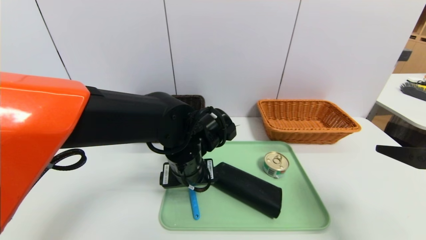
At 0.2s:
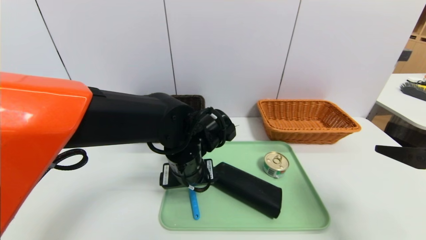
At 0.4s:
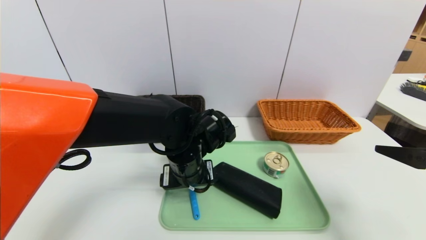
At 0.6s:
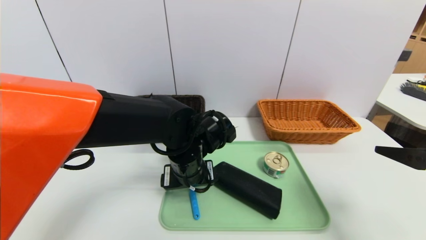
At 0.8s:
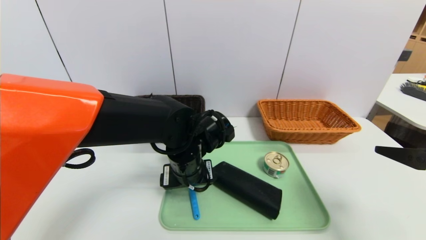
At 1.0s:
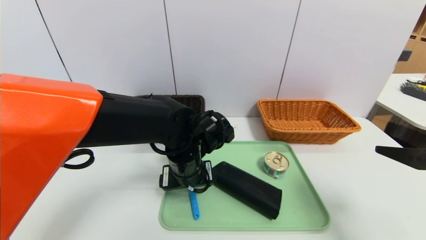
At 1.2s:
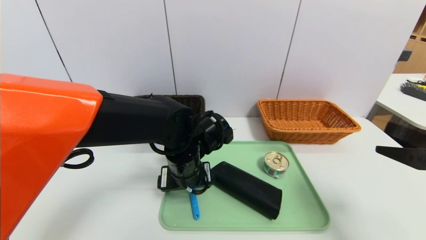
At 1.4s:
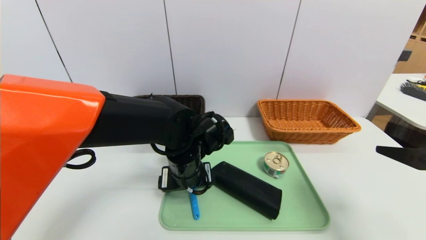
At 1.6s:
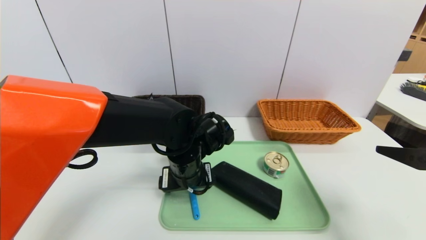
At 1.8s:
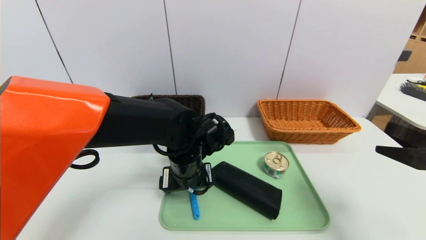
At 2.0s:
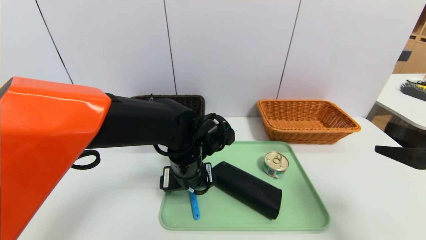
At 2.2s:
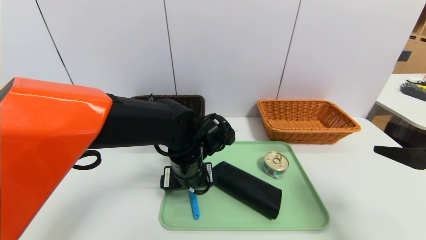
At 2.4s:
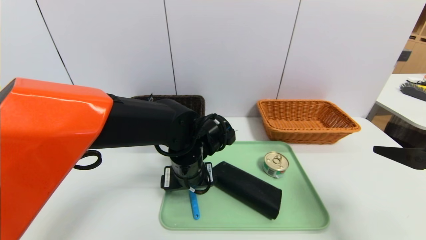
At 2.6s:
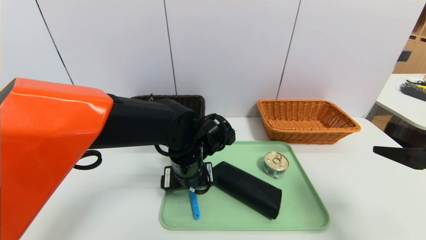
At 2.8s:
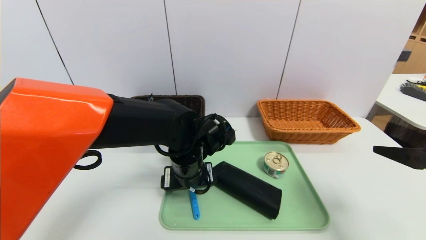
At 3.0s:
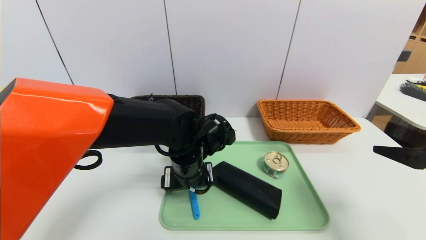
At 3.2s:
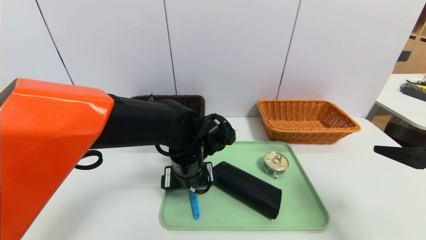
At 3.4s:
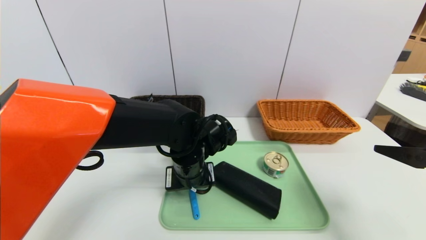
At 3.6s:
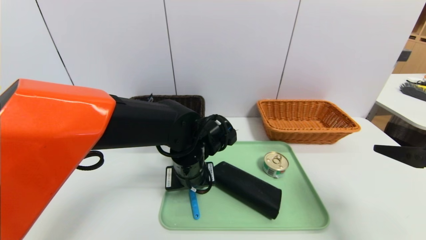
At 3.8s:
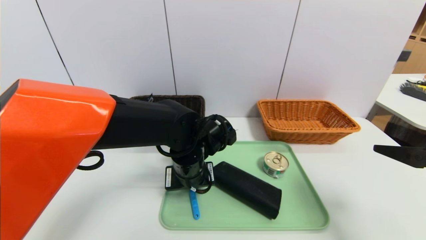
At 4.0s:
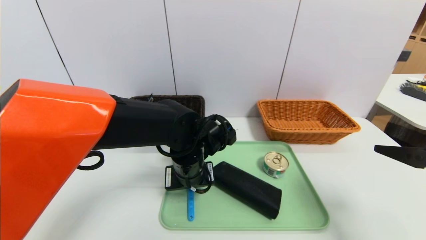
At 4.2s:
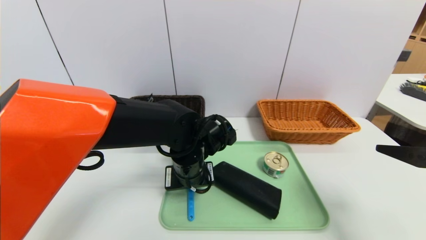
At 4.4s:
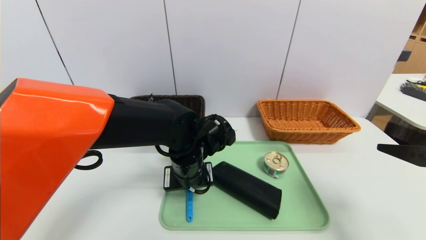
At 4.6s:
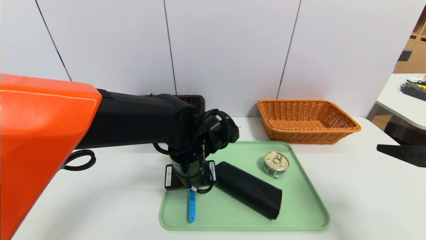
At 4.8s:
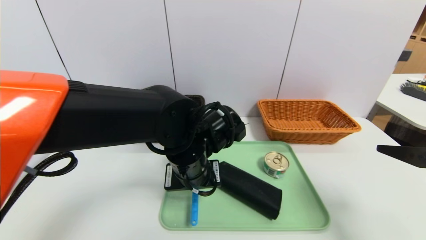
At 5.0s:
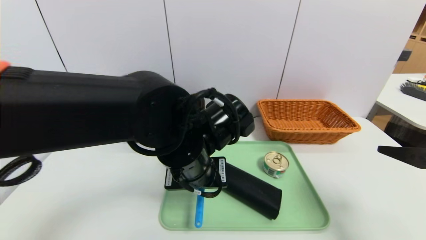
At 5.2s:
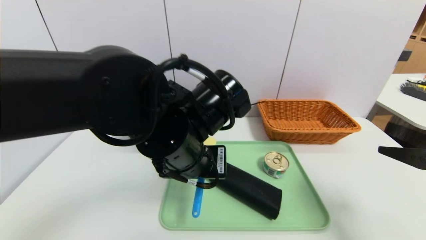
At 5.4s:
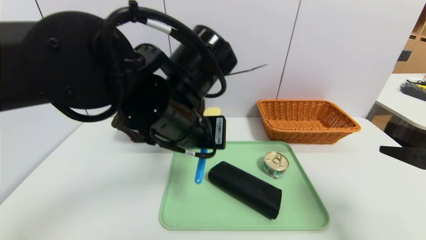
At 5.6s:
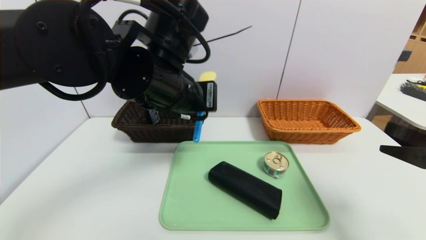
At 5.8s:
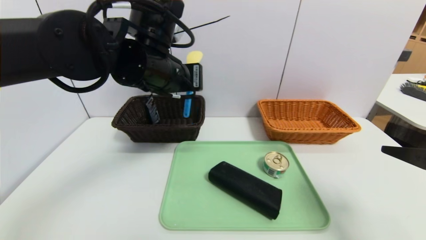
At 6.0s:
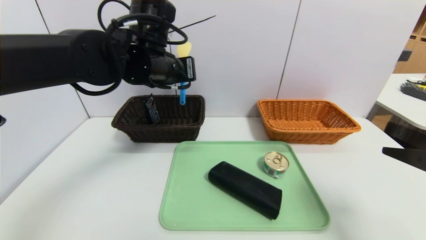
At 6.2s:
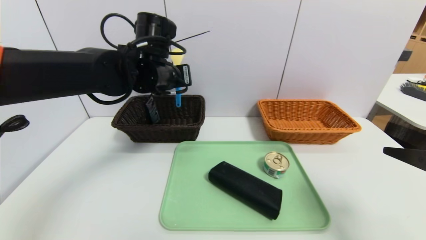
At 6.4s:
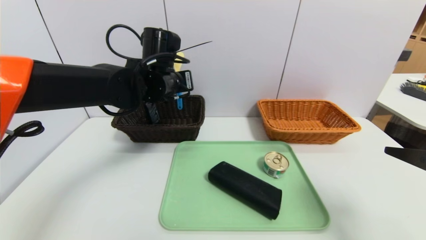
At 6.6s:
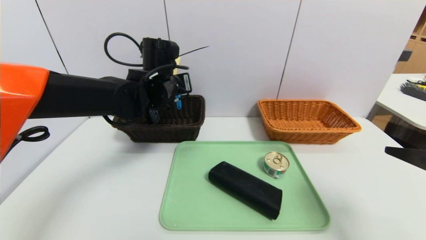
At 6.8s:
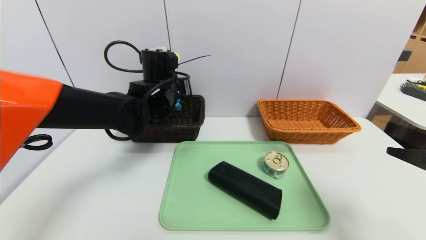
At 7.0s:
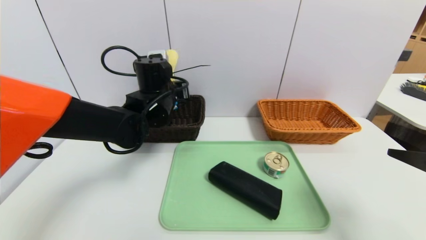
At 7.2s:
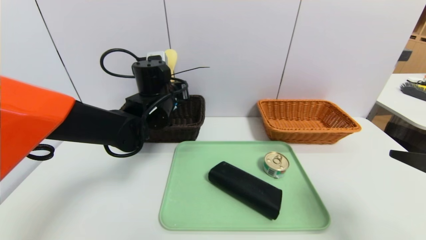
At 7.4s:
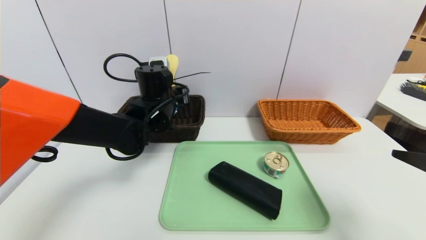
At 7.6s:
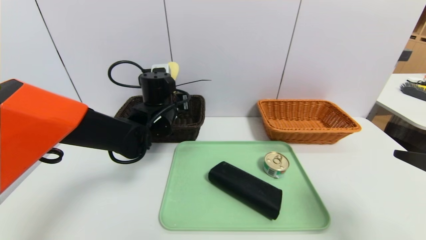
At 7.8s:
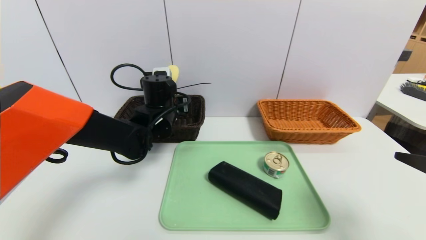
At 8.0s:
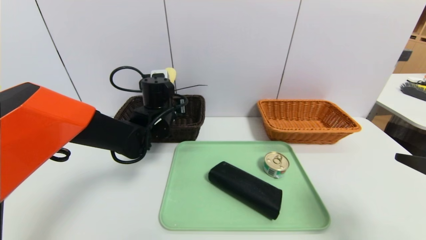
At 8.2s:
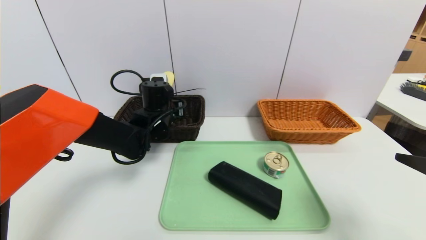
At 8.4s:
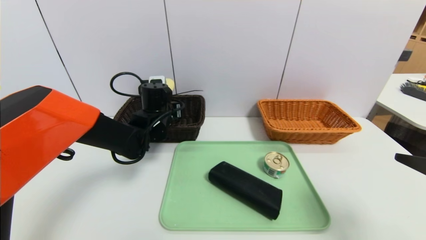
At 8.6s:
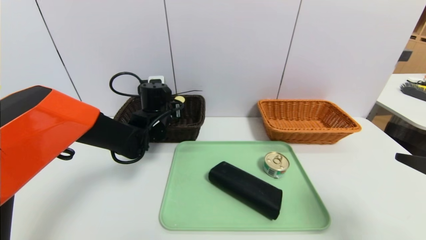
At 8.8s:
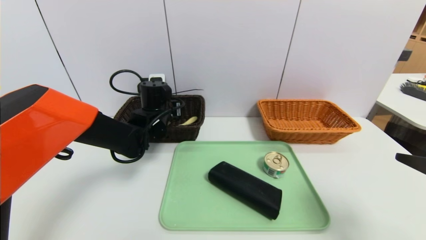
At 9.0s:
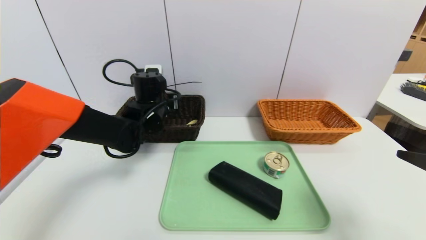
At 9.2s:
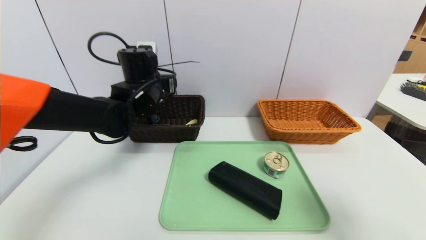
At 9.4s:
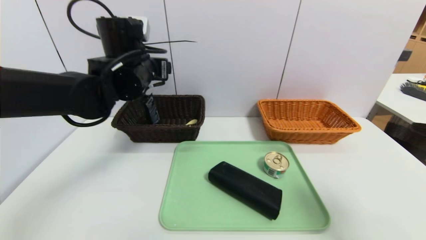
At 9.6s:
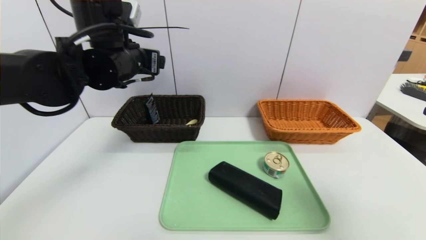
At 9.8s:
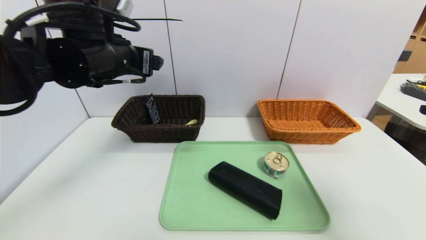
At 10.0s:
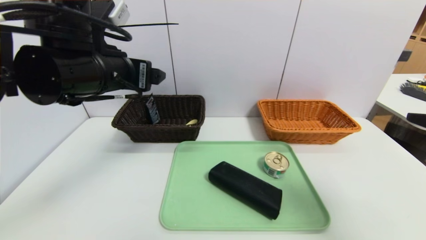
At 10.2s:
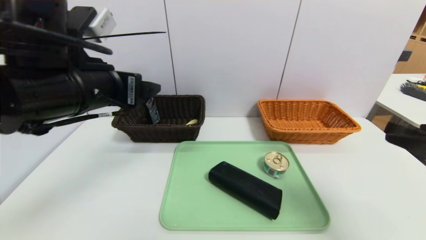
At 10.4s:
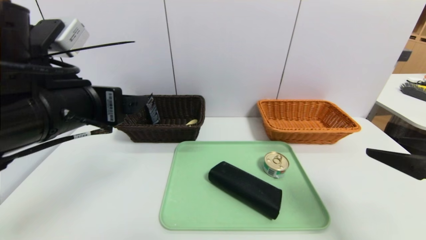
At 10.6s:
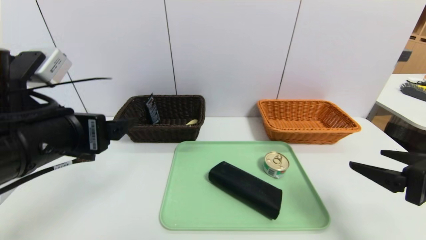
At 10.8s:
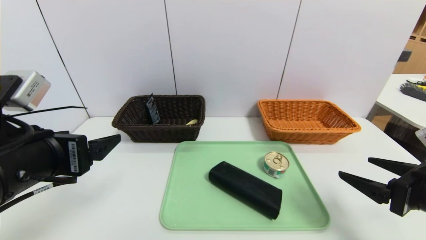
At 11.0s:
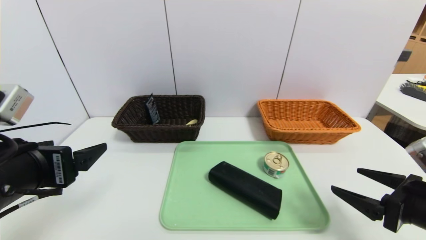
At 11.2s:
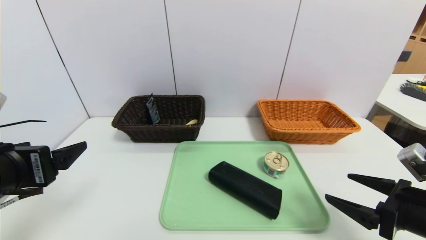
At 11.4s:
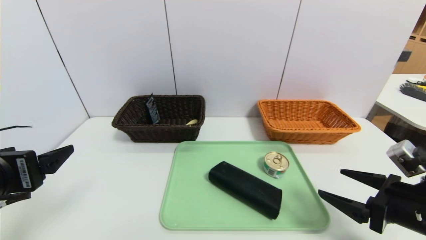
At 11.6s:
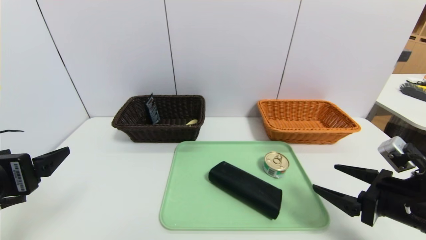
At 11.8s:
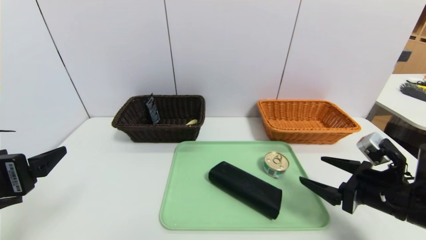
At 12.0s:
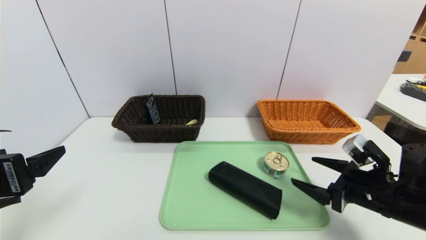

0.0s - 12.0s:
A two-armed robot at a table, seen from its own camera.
Task of the whole recording: place the food in the right basket with the right gripper, and place the non food items in the left basket with the left gripper.
Step, 0.0s - 9.0s: Grasp the spoon and put it in the left basket.
0.0s - 1.6s: The grippers move only a little.
1.6s - 3.0s: Neither gripper changes place.
3.0s - 4.4s: The left gripper closes up.
4.4s - 6.0s: The left gripper goes roughly 15 cm upward.
6.0s - 7.6s: The left gripper goes about 10 cm downward.
7.6s - 9.0s: The left gripper opens its fingers.
9.0s - 10.4s: The left gripper shifts about 25 cm backward and upward.
10.4s - 12.0s: The right gripper shifts about 15 cm downward and forward. Meanwhile the left gripper moves to the left, backward and downward, about 15 cm.

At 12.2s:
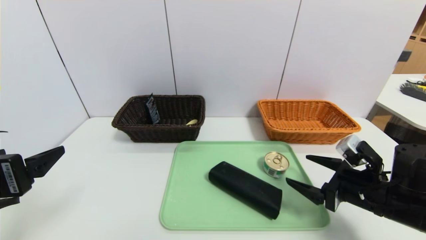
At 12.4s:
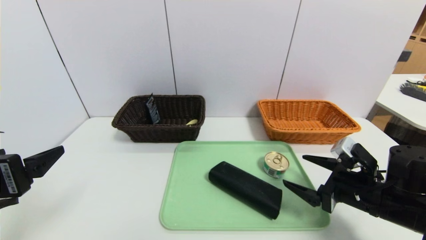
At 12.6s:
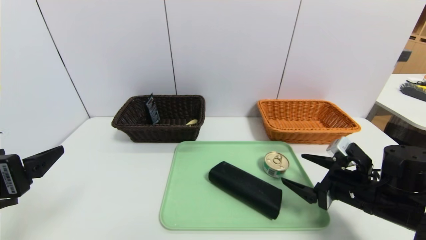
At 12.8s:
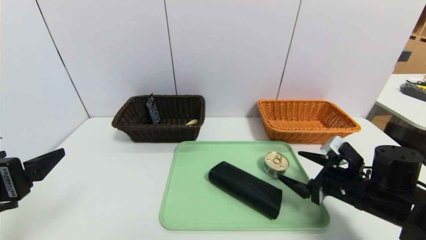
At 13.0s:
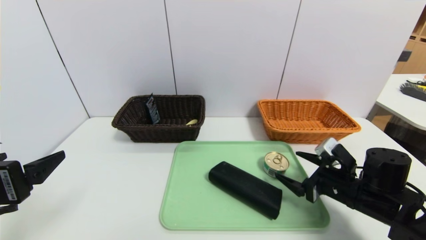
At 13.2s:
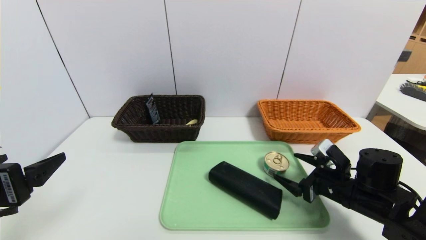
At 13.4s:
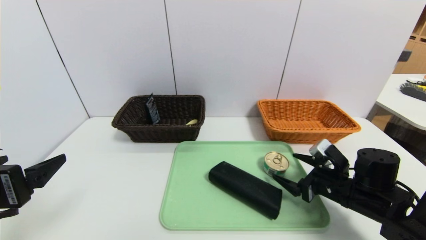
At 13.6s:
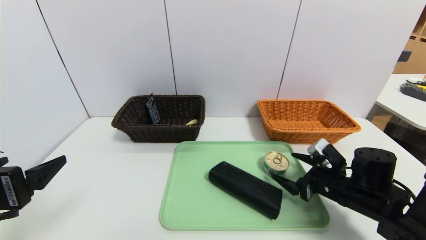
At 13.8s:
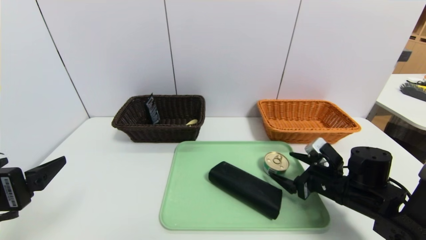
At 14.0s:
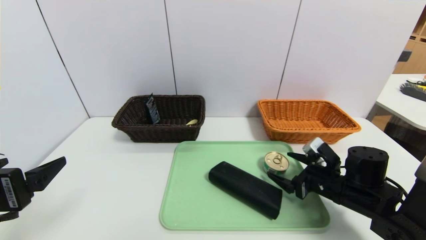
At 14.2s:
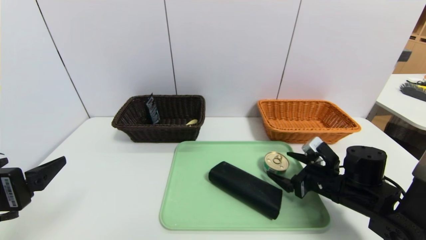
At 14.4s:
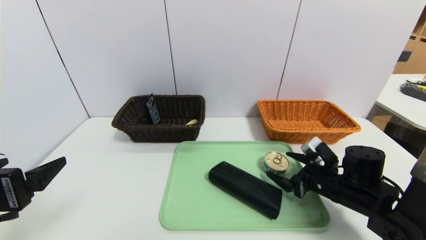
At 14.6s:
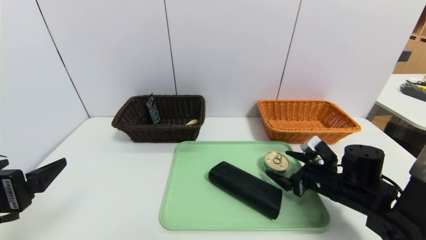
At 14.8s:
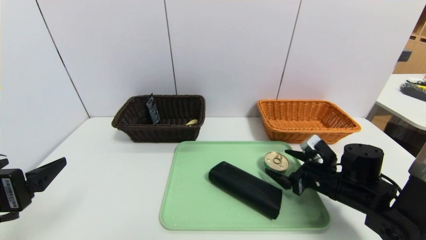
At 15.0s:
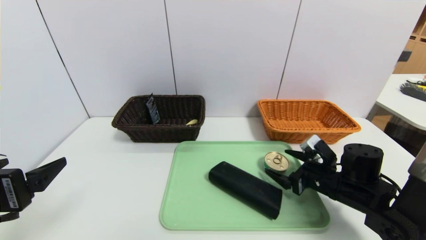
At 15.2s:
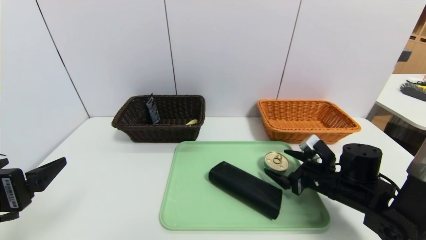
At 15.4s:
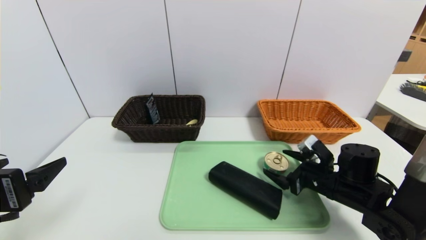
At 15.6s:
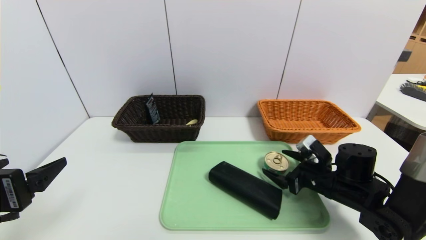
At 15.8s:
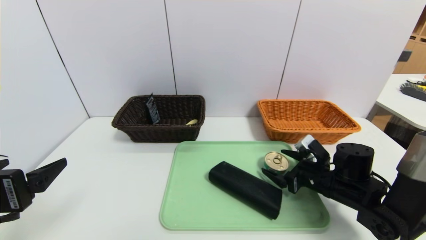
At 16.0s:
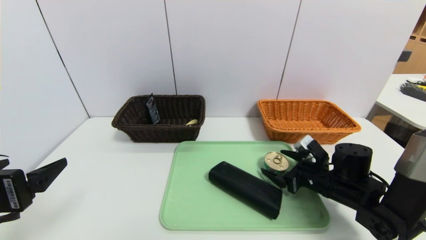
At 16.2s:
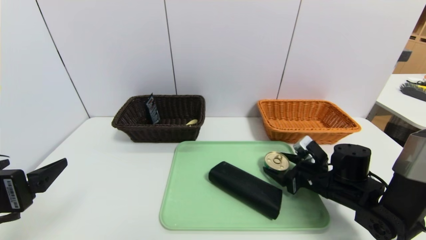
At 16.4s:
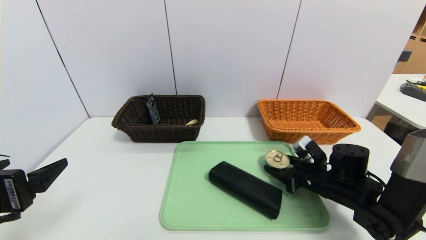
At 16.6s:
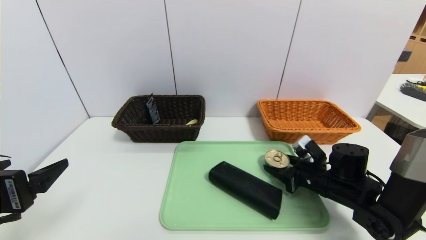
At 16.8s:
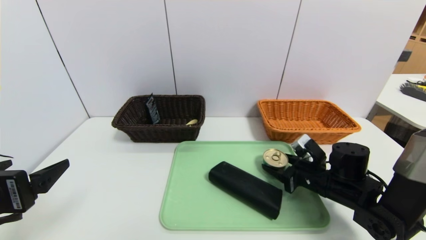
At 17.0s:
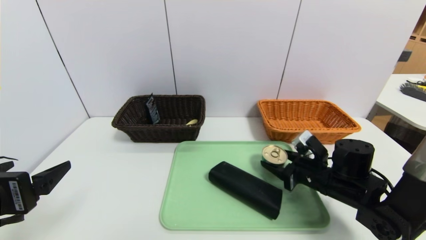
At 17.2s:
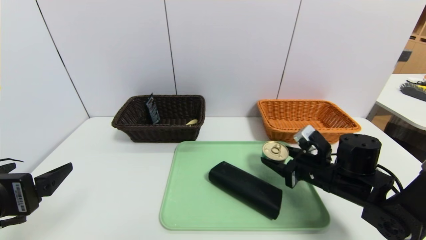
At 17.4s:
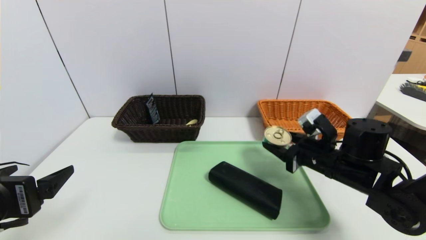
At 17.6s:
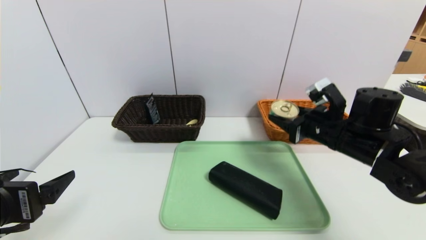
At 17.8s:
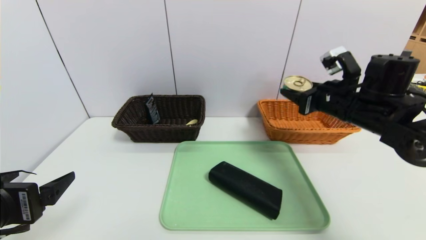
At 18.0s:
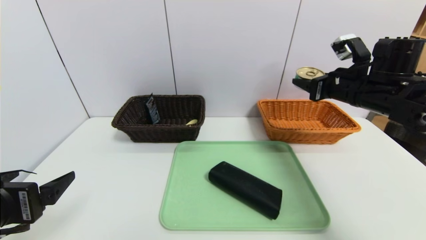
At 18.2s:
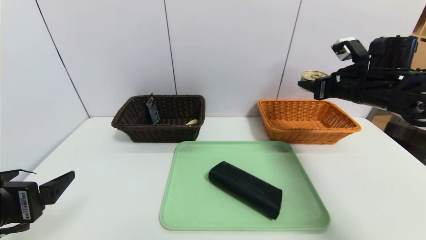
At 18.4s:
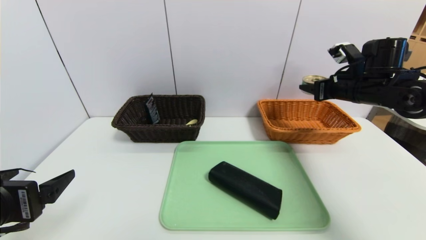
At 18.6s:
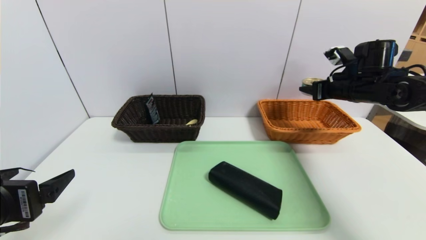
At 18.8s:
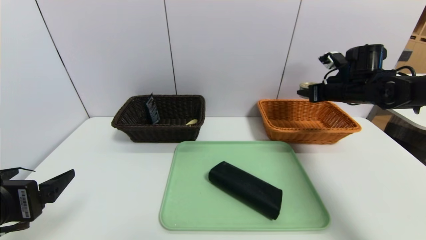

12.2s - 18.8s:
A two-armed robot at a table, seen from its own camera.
Task of the whole recording: place the food in the right basket with the right gripper, and place the non food items in the left basket with the left gripper.
12.2s - 13.8s: The right gripper moves some 5 cm.
13.8s - 15.4s: The grippers make only small movements.
15.4s - 17.2s: The right gripper closes.
17.2s - 18.8s: The right gripper is displaced forward, upward and to the right by approximately 20 cm.
